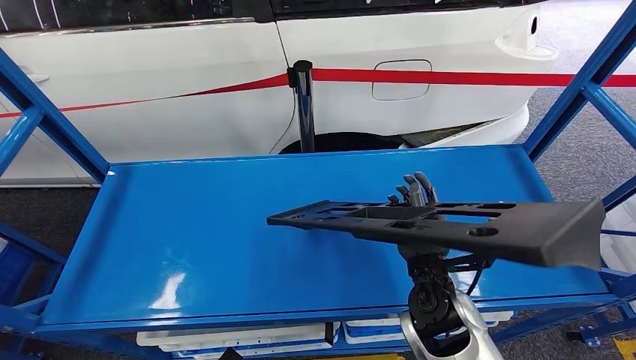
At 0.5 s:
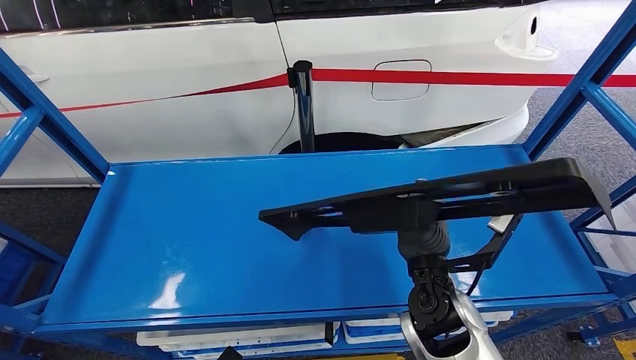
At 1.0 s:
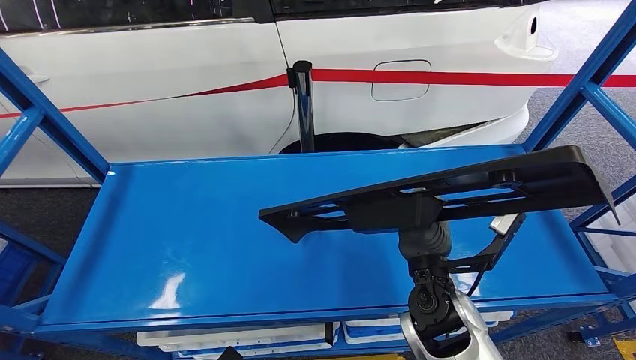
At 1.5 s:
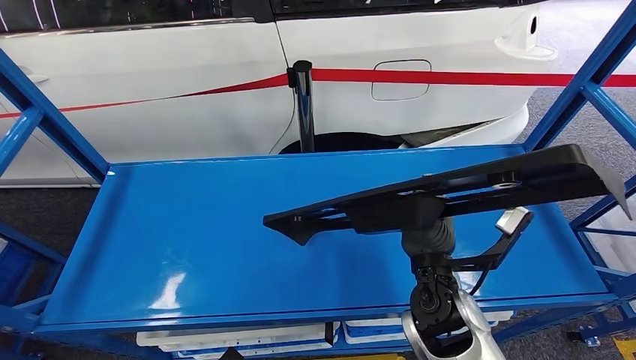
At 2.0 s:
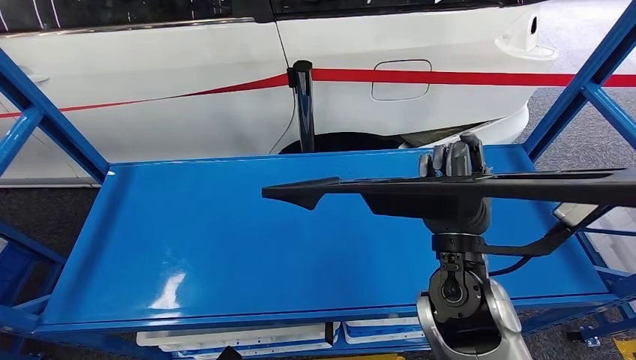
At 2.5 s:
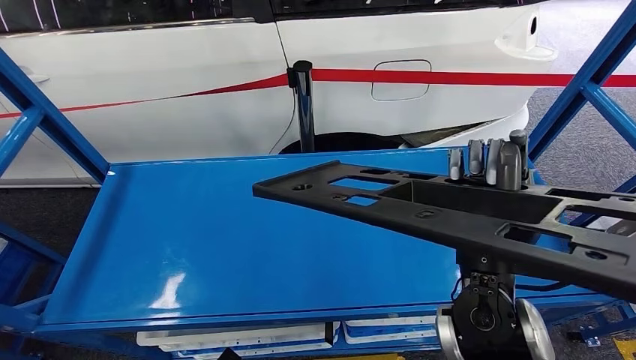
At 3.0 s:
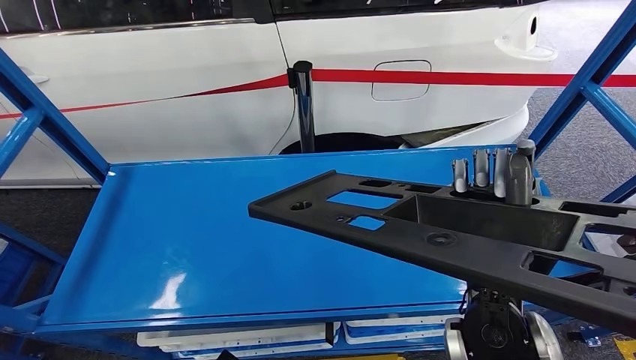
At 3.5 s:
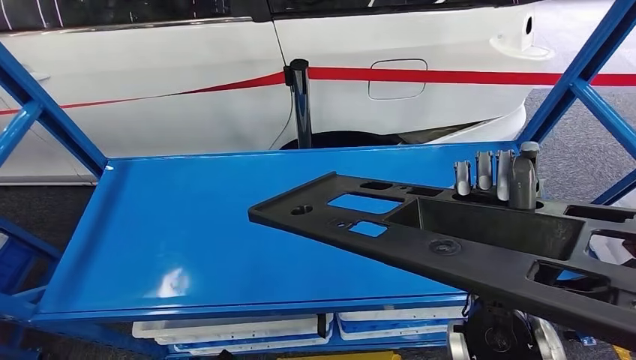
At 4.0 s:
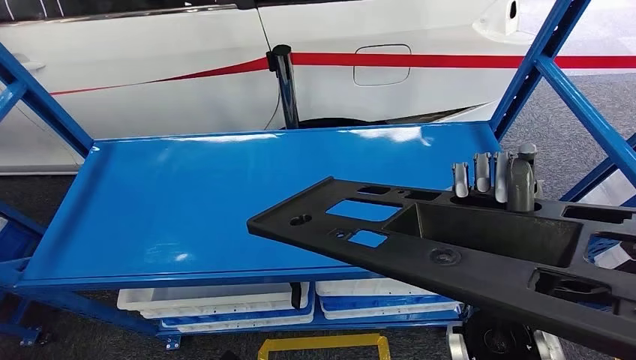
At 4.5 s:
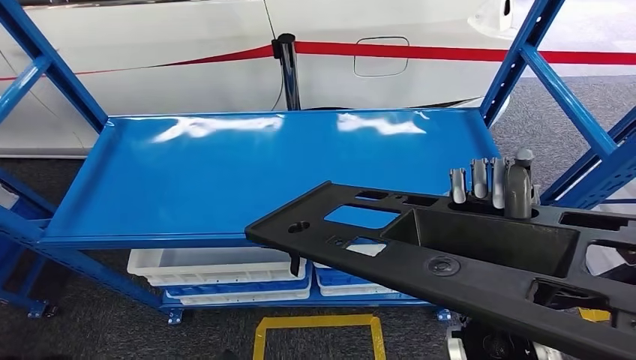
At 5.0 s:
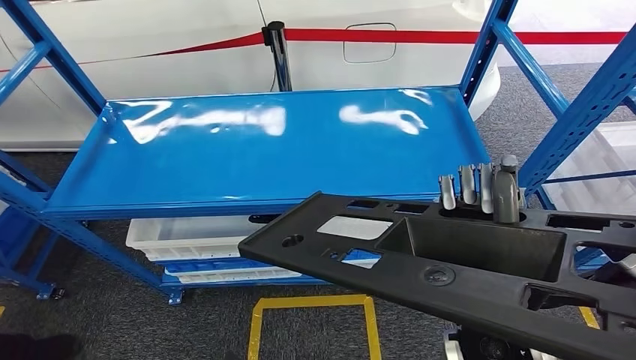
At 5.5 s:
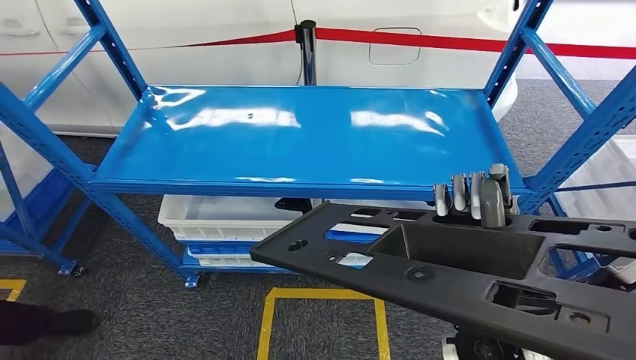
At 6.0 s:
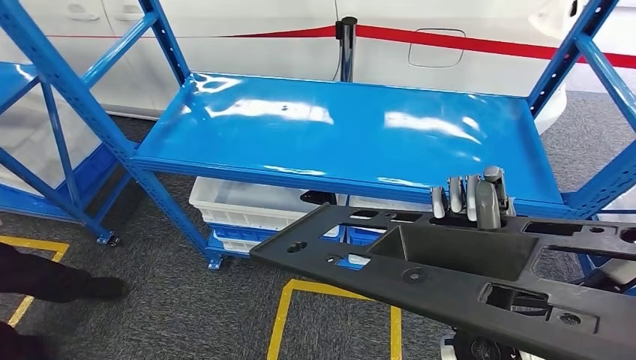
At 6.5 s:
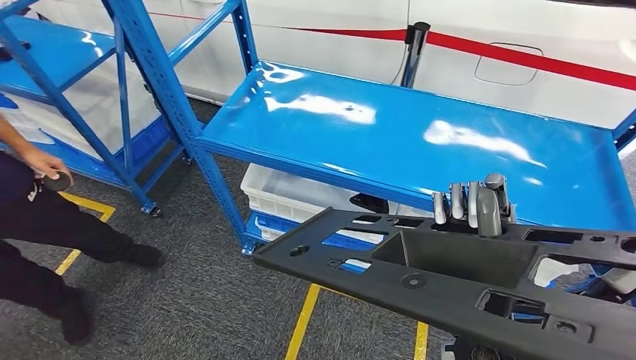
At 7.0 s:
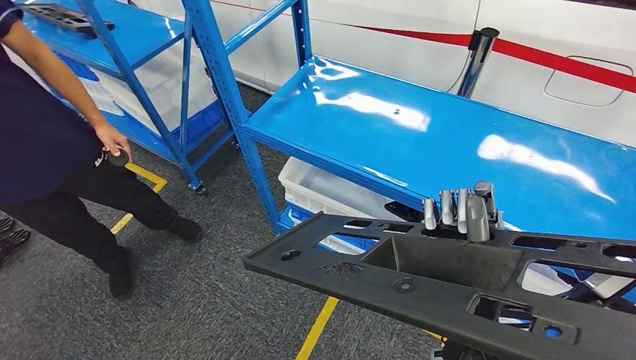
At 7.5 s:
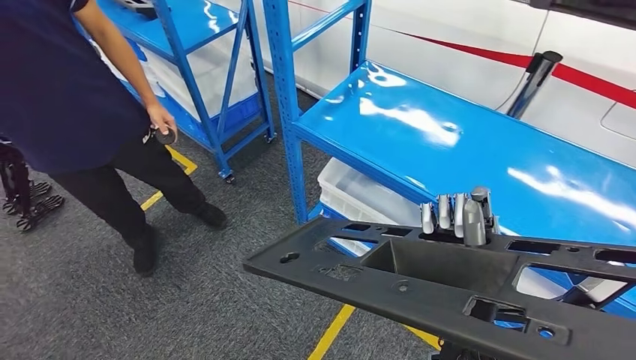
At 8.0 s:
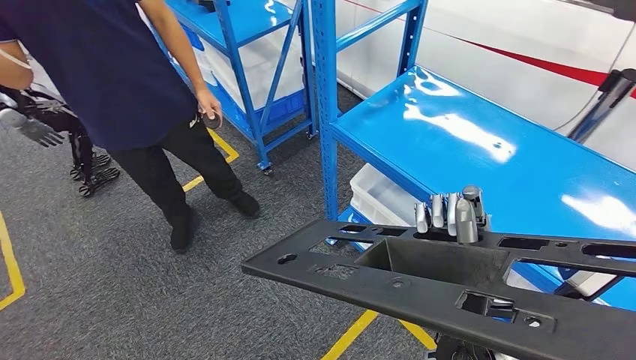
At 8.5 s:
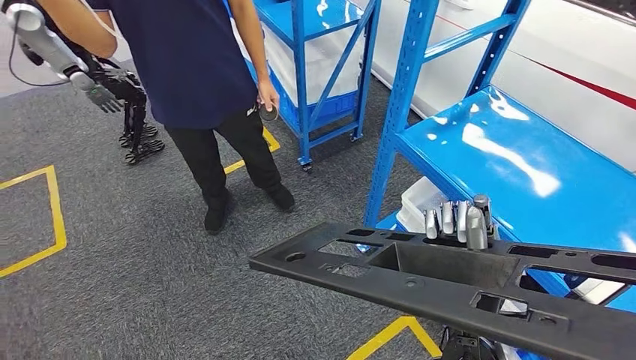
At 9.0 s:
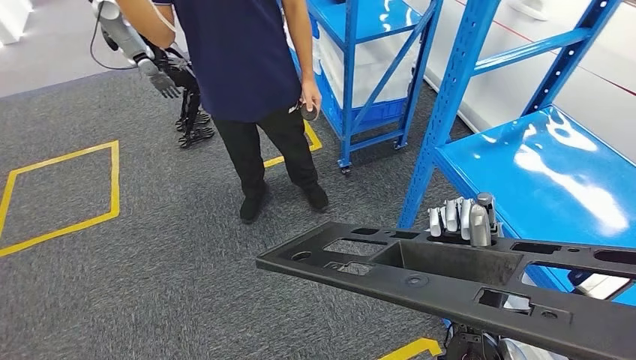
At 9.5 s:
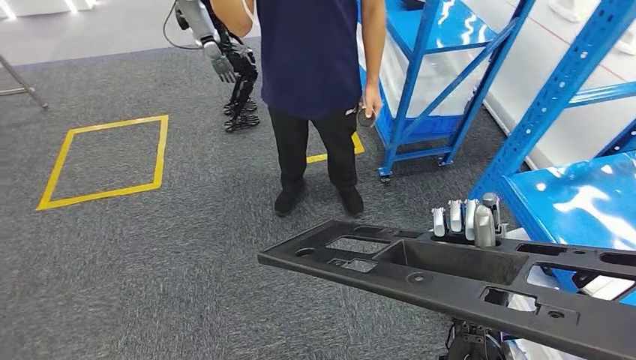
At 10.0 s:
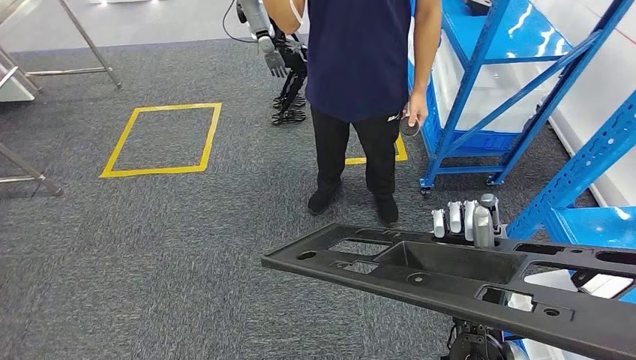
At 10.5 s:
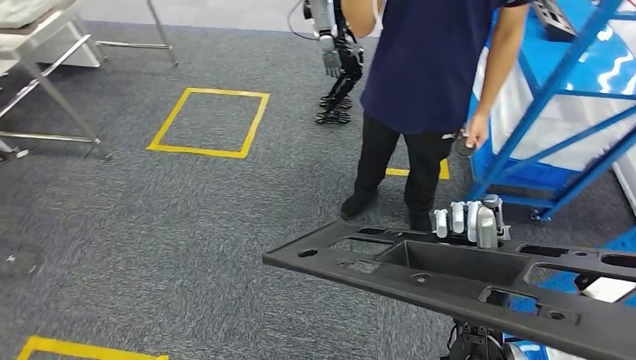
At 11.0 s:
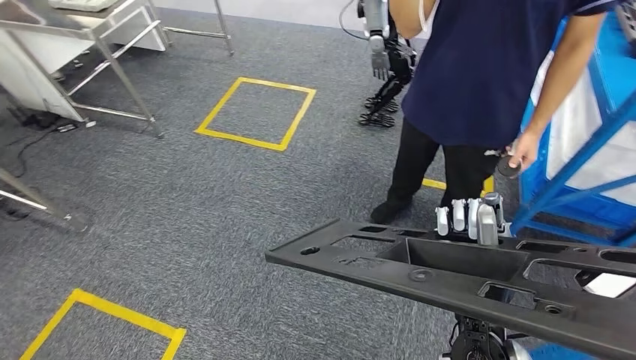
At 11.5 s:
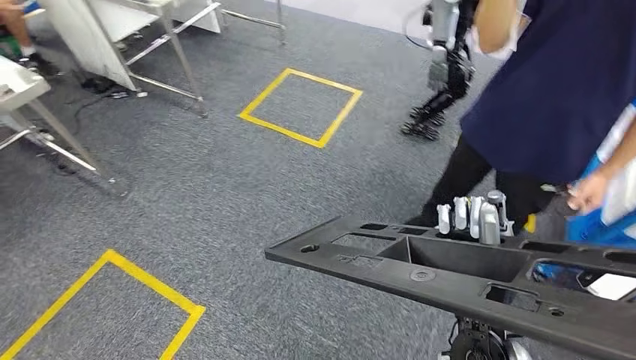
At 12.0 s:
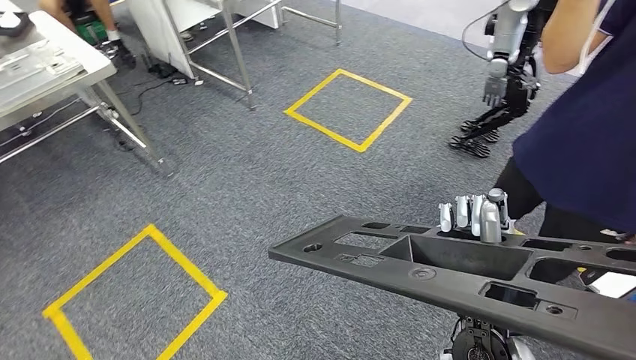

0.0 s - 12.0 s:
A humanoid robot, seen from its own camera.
0.0 s - 2.0 s: The right hand moves upward, some 10 cm.

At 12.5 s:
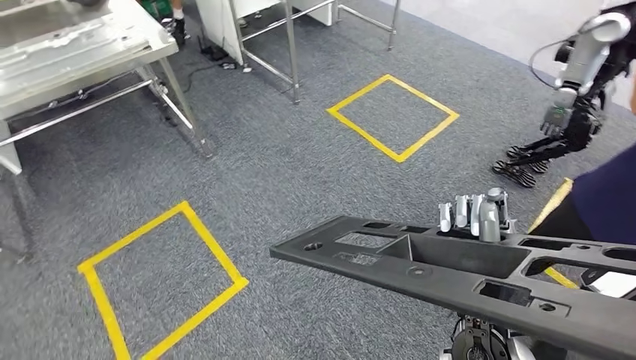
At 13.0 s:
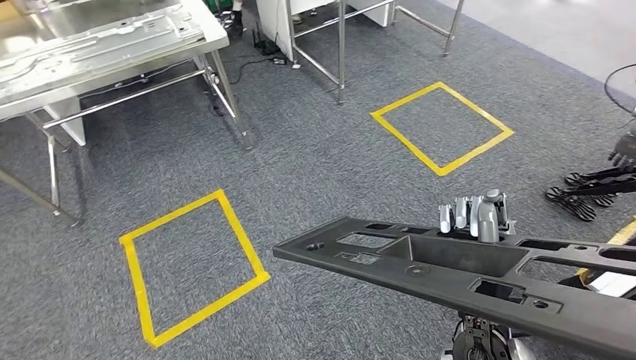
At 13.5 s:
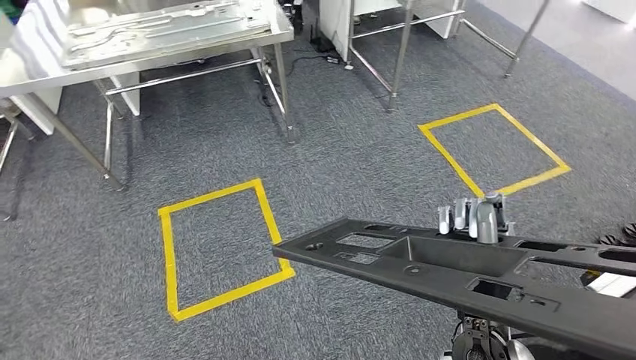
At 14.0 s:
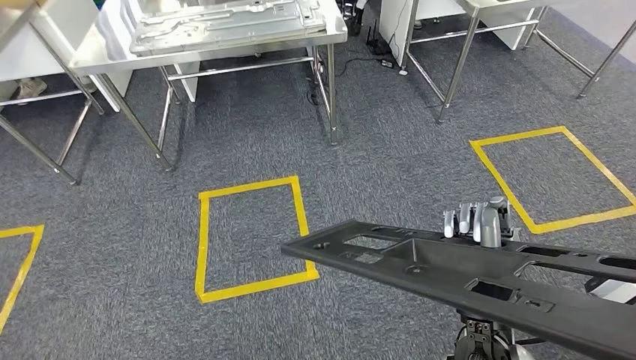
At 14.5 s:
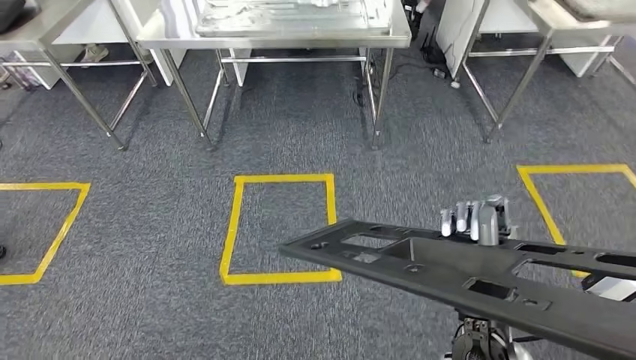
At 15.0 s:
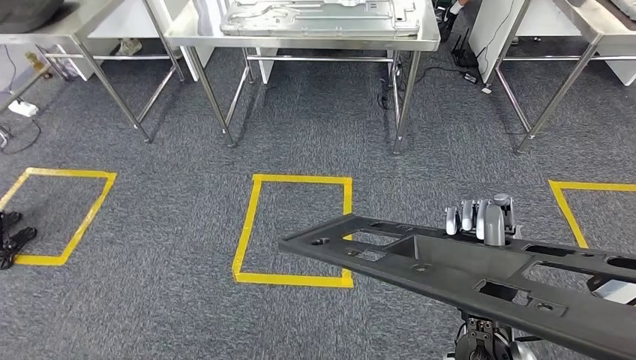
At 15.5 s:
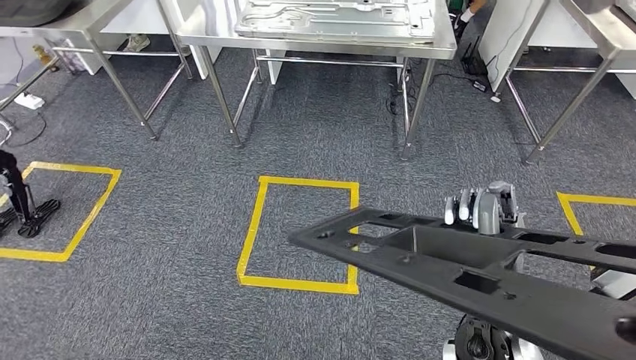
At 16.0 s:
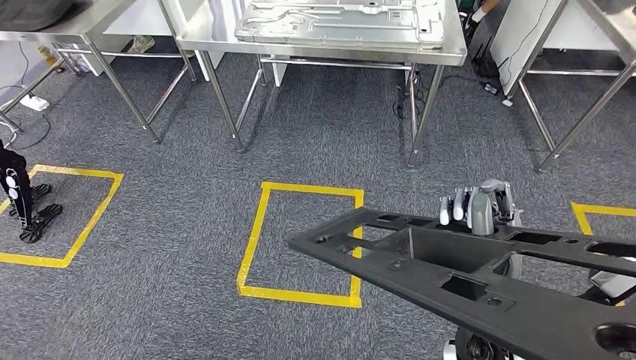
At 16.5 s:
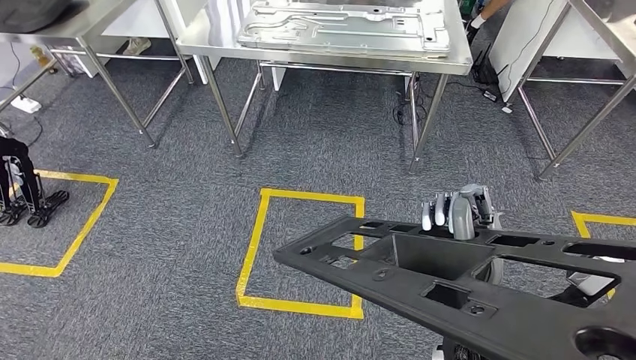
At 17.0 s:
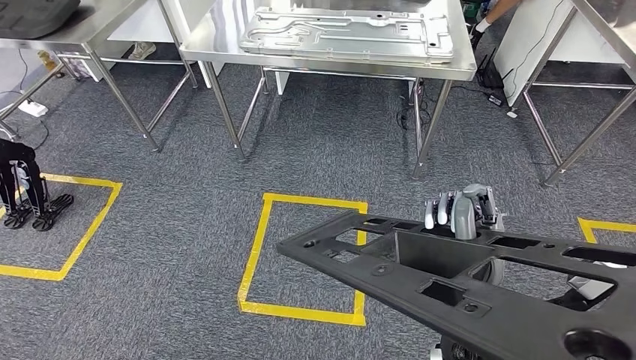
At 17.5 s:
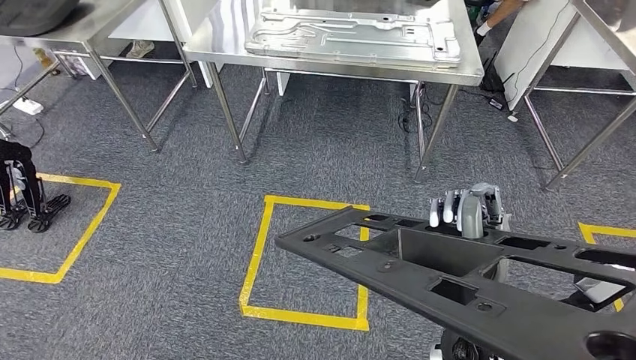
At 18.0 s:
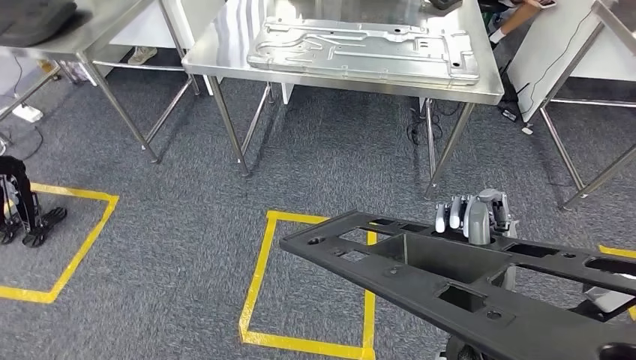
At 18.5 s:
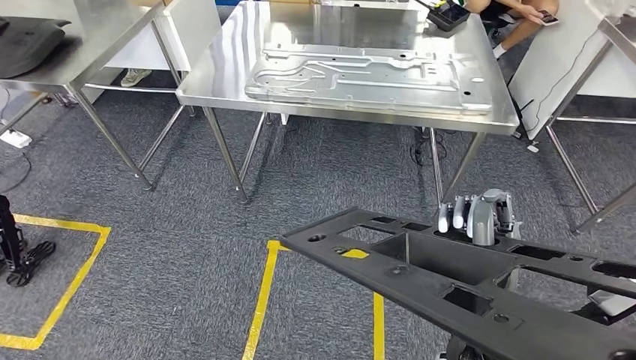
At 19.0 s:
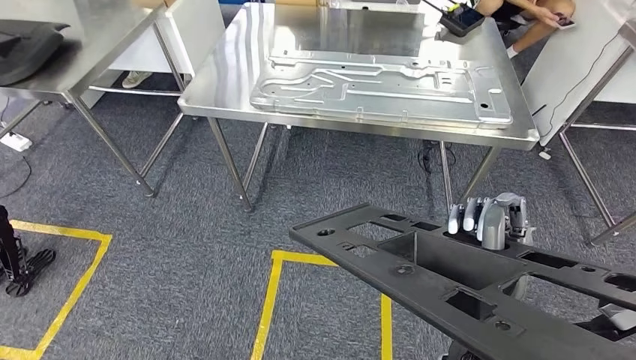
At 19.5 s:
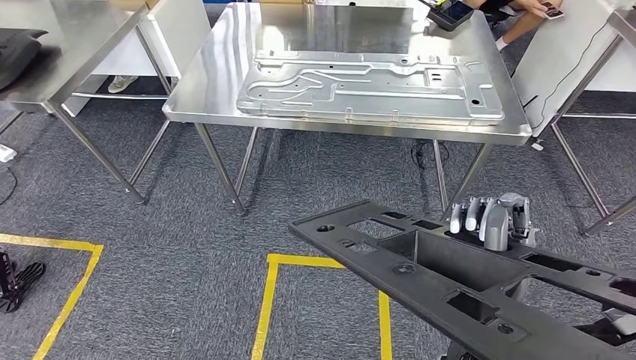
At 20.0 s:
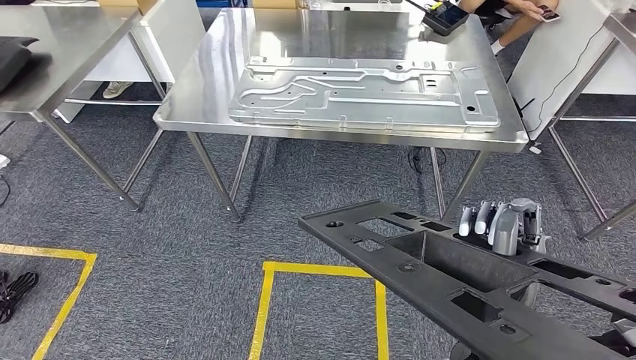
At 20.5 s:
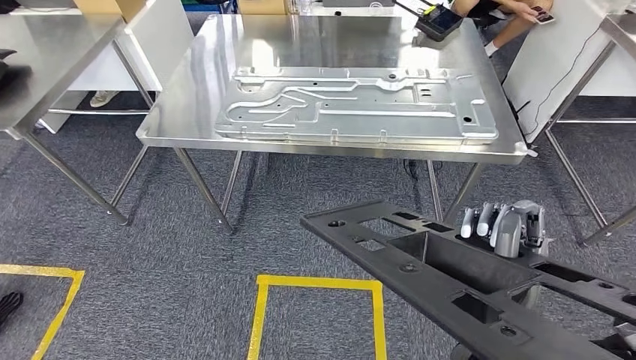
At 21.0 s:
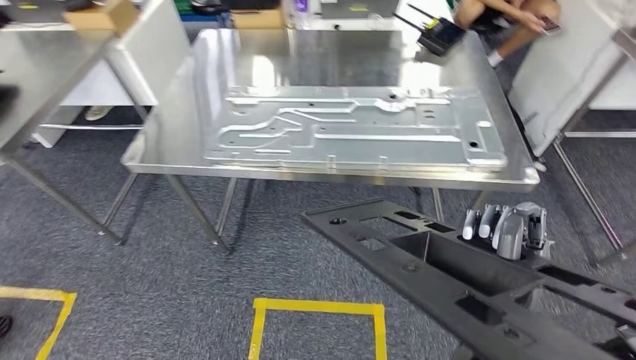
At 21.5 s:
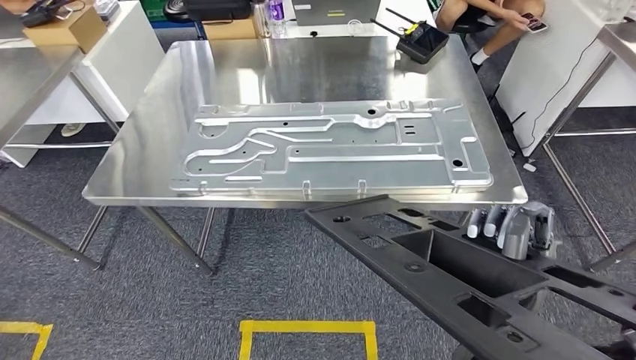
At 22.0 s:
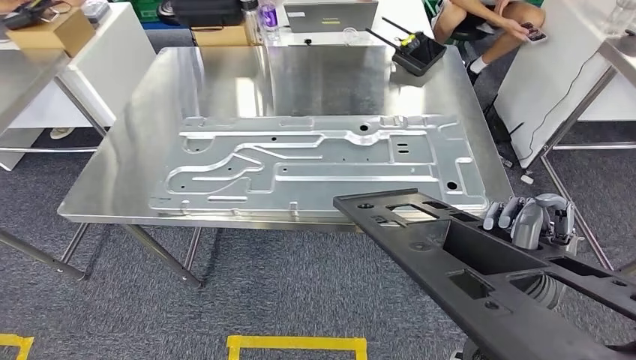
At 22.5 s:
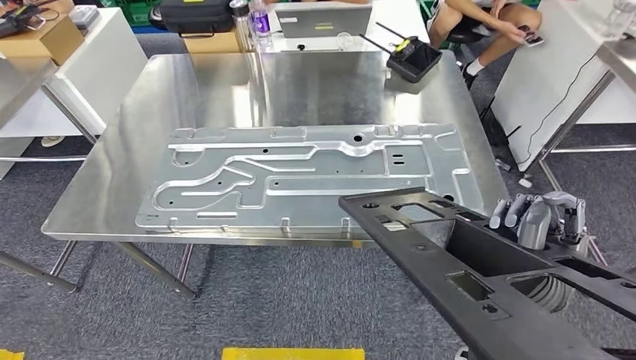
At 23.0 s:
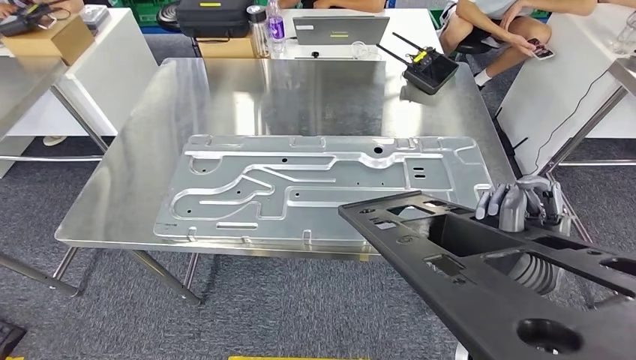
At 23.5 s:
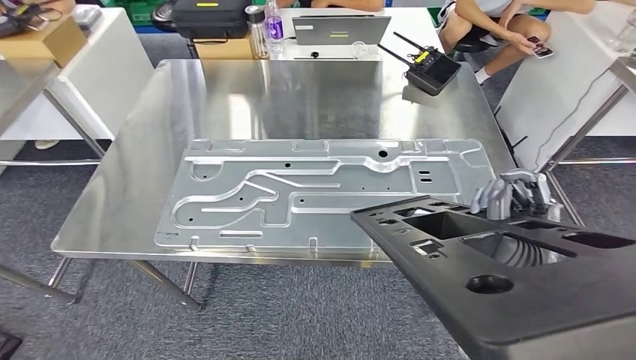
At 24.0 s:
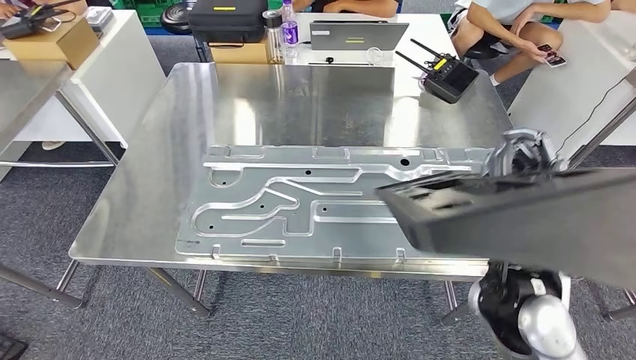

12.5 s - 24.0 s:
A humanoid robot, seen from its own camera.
Step, 12.5 s - 21.0 s: Move the large material to the workbench.
